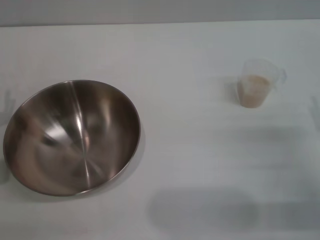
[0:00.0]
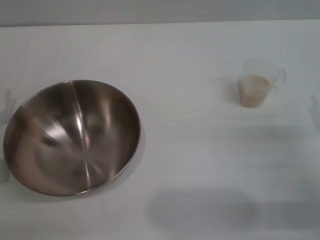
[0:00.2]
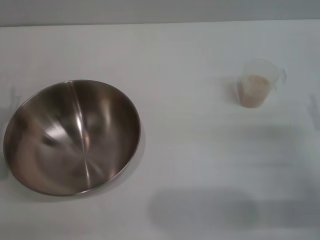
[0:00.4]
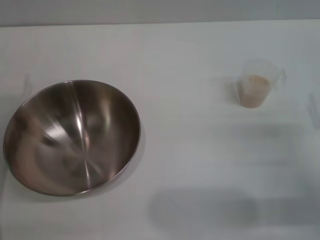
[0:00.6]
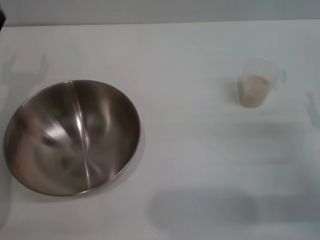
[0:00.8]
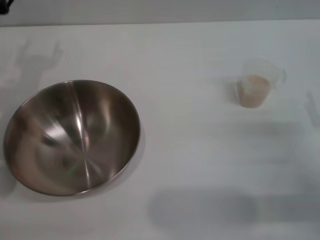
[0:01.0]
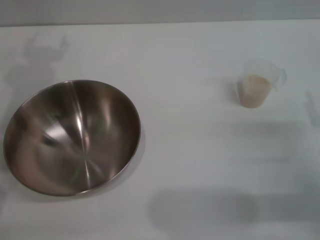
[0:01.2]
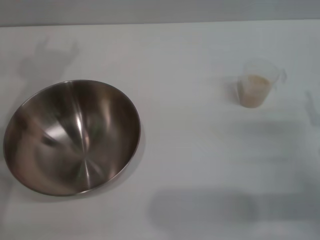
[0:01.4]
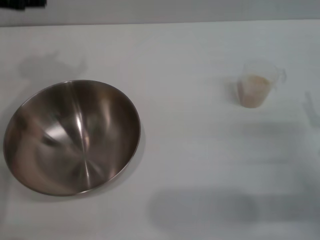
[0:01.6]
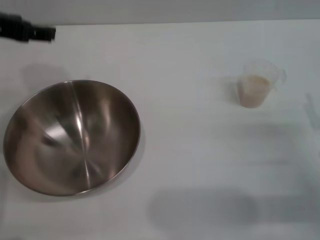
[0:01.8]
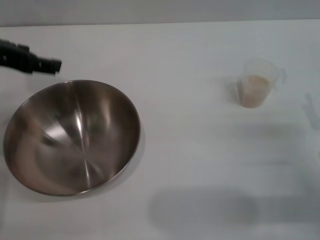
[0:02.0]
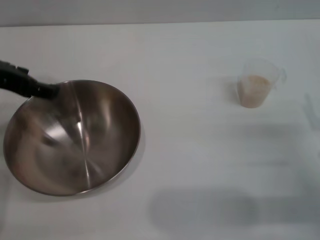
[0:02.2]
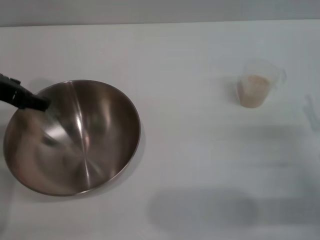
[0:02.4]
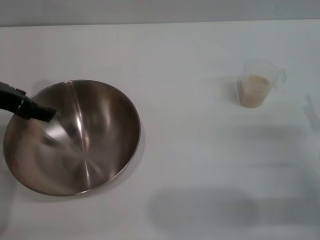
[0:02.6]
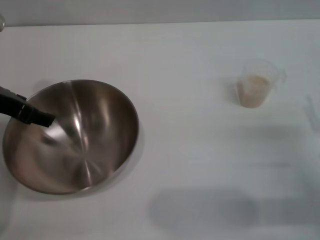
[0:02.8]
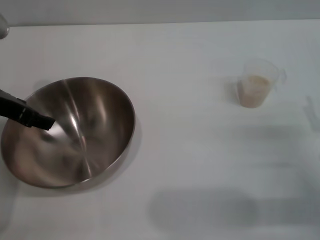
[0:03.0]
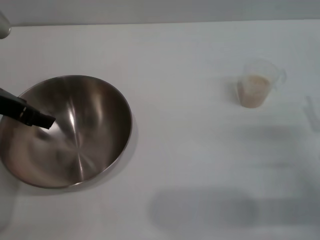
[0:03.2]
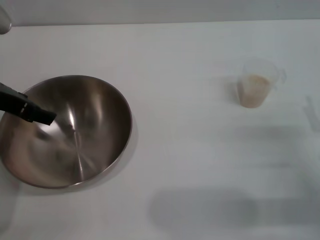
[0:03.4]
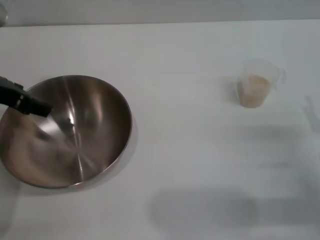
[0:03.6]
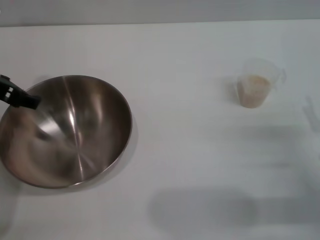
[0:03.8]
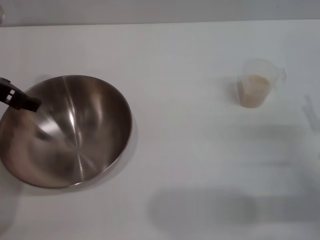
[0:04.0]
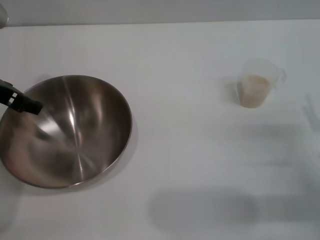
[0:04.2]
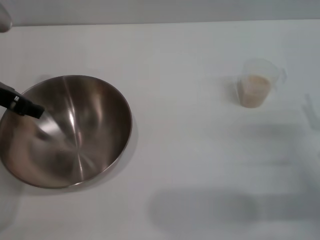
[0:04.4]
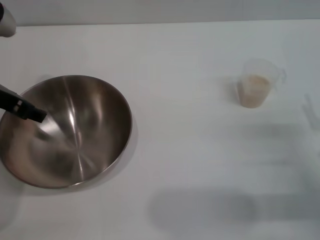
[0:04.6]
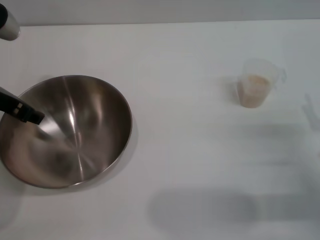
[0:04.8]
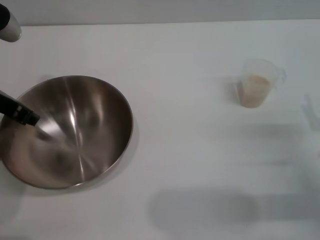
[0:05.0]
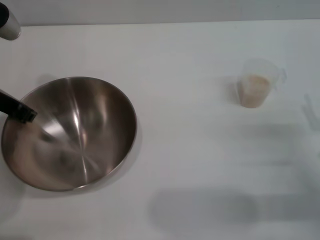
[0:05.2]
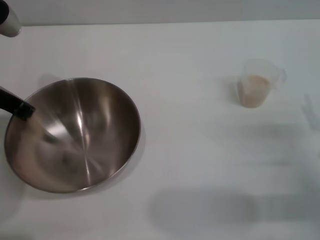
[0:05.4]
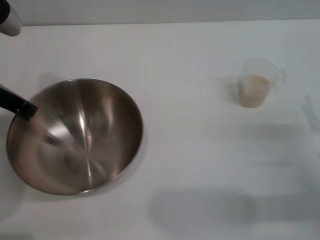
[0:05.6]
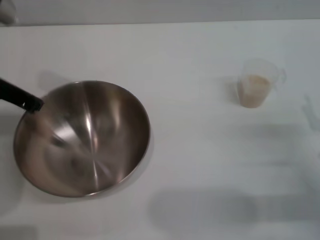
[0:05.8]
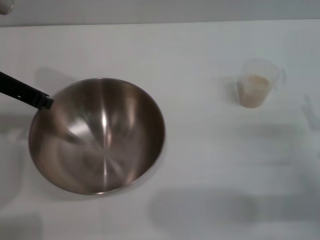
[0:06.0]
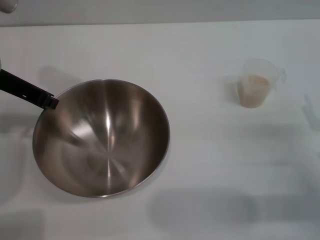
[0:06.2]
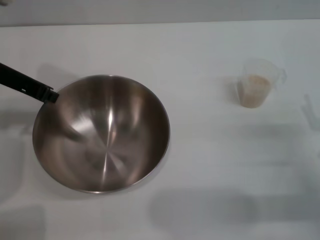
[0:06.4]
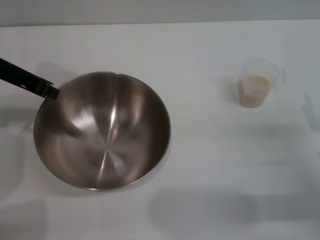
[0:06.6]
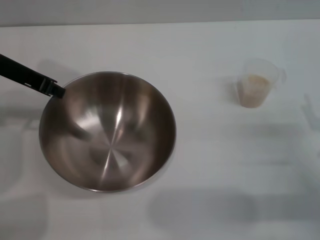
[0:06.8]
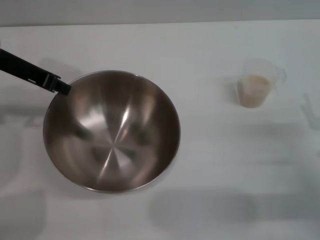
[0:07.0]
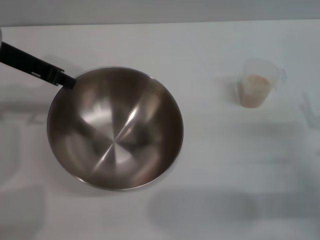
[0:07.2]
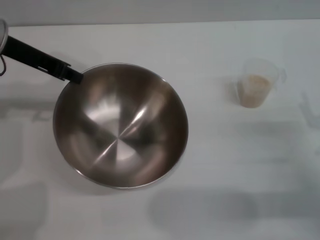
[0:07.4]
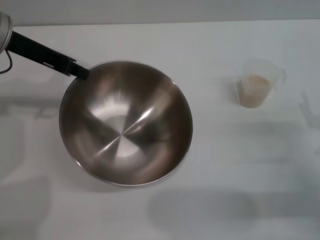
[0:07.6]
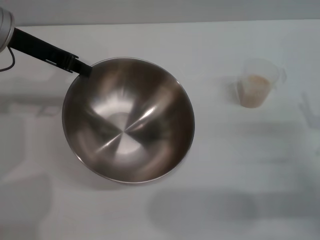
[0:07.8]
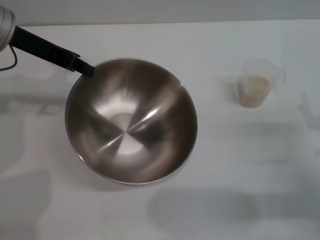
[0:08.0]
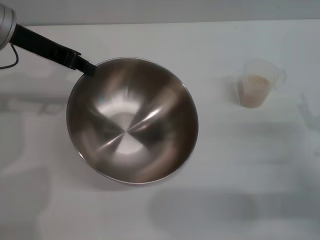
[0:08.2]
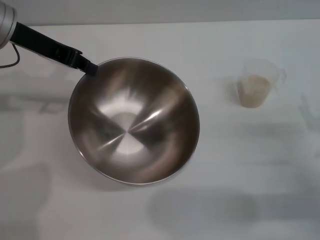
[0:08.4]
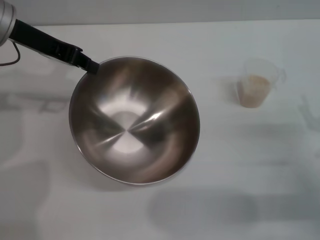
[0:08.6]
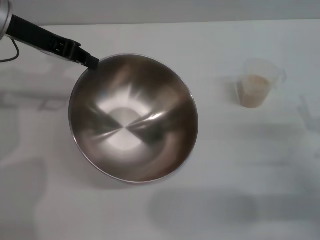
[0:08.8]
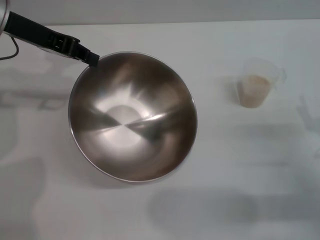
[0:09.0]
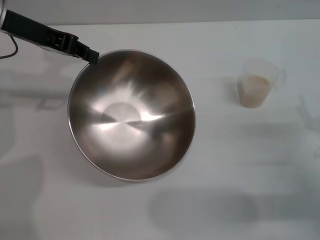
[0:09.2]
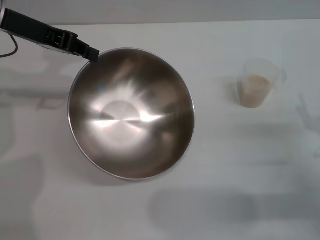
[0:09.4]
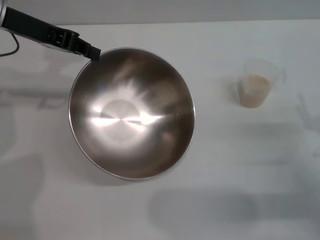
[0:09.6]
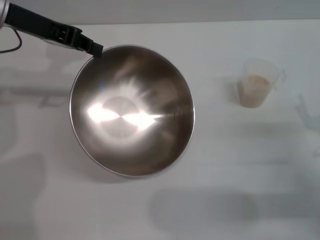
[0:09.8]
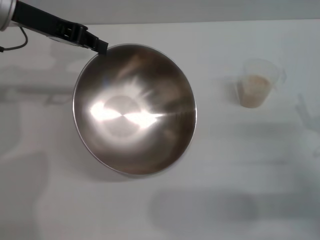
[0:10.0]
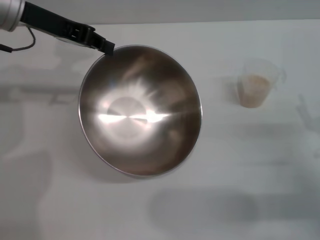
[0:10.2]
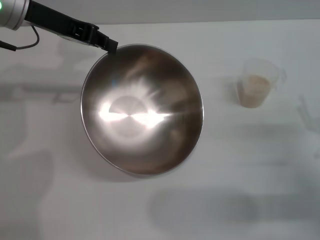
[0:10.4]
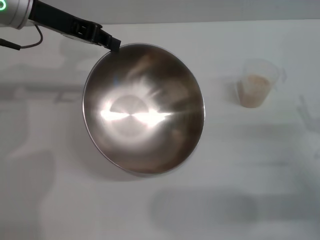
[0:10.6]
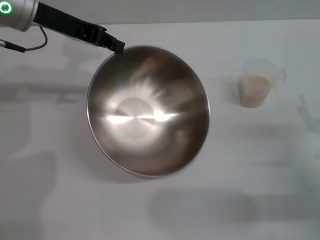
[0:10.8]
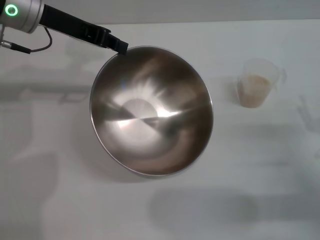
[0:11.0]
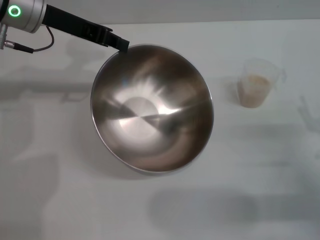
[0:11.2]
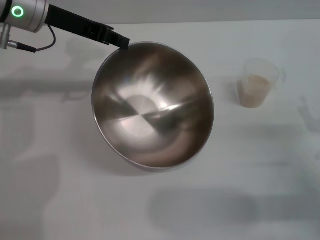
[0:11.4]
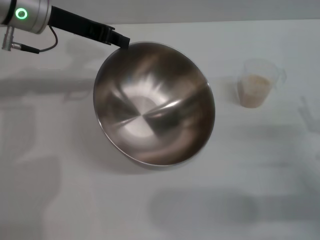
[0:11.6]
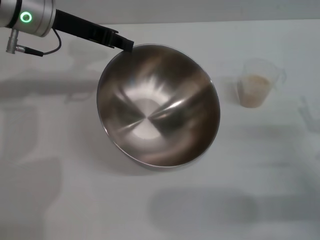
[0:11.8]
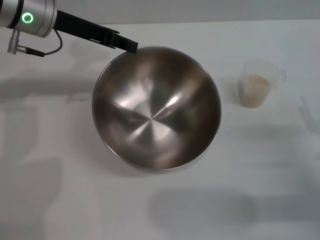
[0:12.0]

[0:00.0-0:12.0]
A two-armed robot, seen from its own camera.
Task of the whole recording: Place the bowl in the middle of the table with one hand and pour the rice from the grain cup into it with the other hand.
Step, 0:00.0 to 0:08.4: Pick up the bowl with the left gripper.
0:00.0 to 0:01.6: The left gripper moves upward and forward, some 25 cm.
0:01.6 to 0:03.0: The left gripper travels downward by about 5 cm.
0:03.0 to 0:04.4: The grippers stay close to where they were, moving slightly.
0:04.4 to 0:06.0: The left gripper closes up.
0:07.6 to 0:12.0: There are only small adjustments of the grippers.

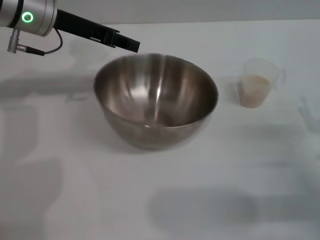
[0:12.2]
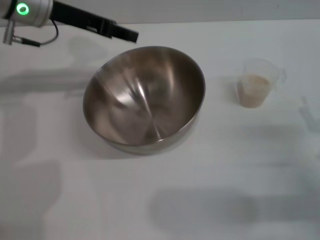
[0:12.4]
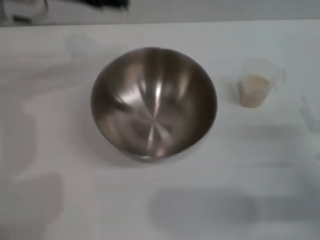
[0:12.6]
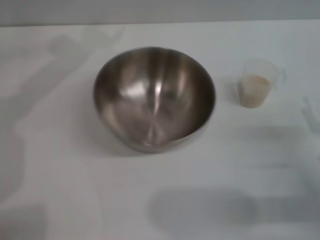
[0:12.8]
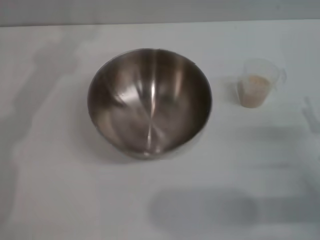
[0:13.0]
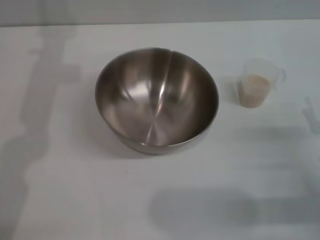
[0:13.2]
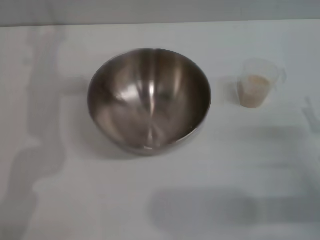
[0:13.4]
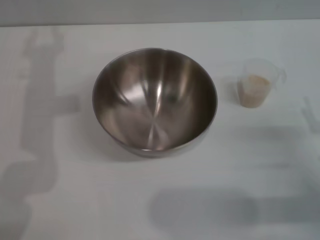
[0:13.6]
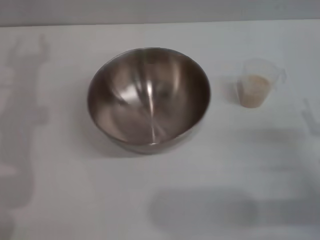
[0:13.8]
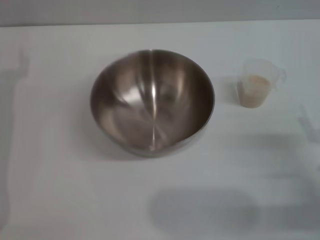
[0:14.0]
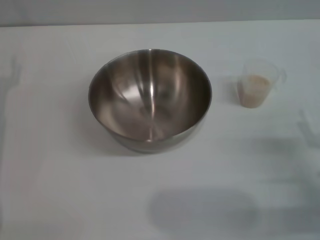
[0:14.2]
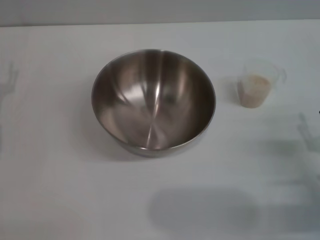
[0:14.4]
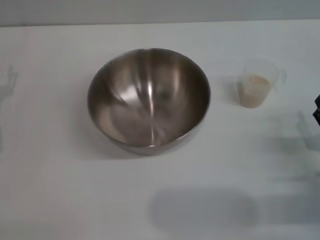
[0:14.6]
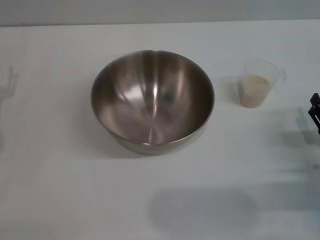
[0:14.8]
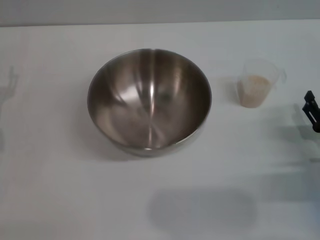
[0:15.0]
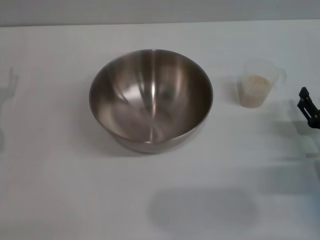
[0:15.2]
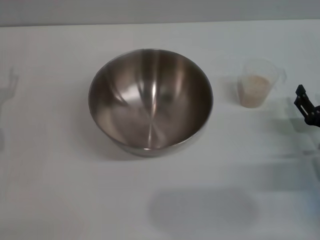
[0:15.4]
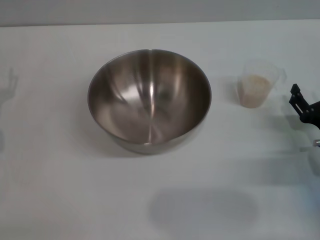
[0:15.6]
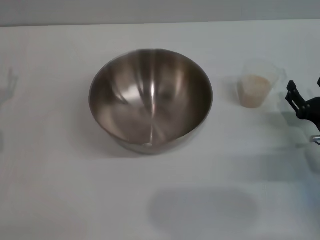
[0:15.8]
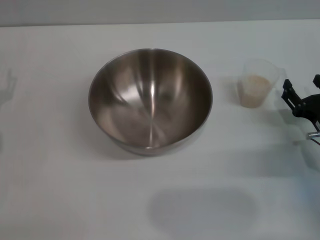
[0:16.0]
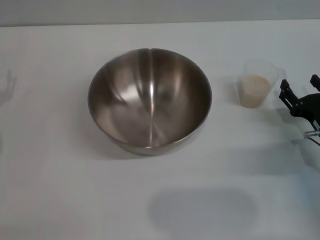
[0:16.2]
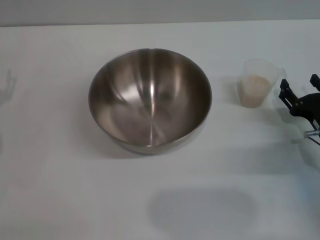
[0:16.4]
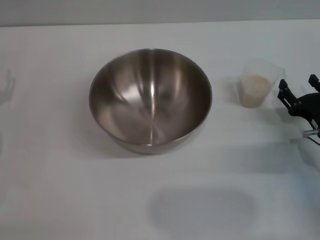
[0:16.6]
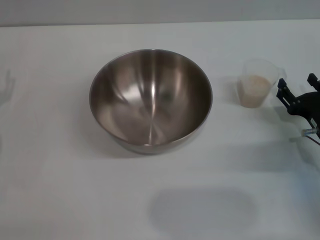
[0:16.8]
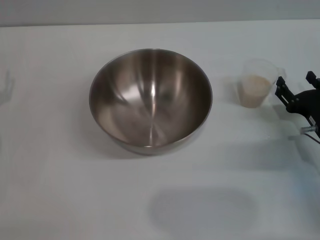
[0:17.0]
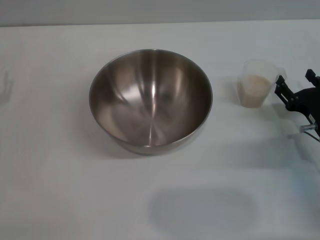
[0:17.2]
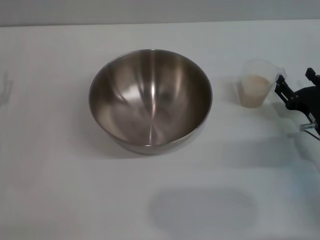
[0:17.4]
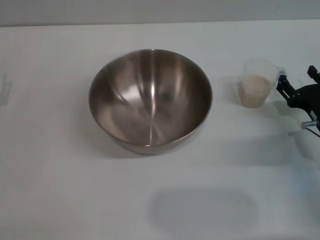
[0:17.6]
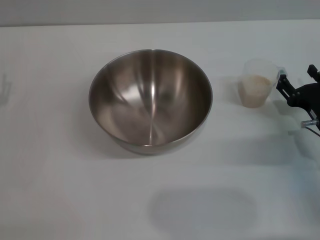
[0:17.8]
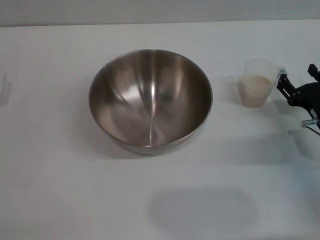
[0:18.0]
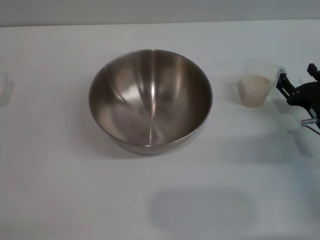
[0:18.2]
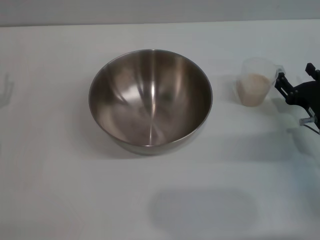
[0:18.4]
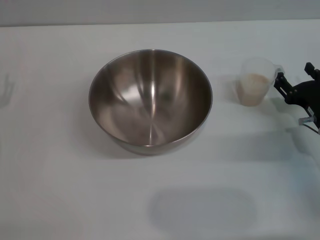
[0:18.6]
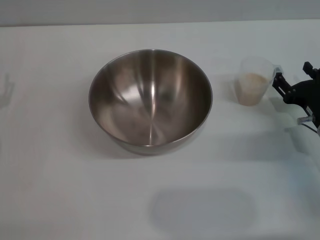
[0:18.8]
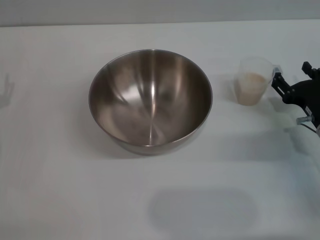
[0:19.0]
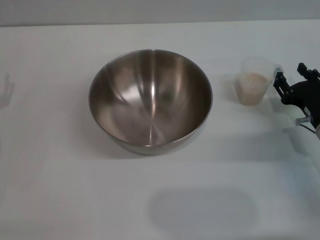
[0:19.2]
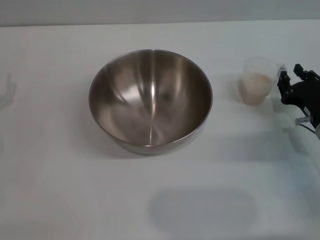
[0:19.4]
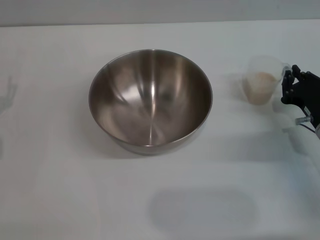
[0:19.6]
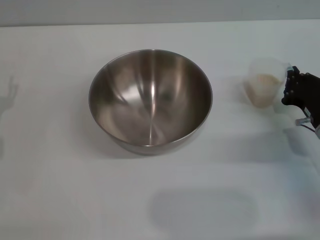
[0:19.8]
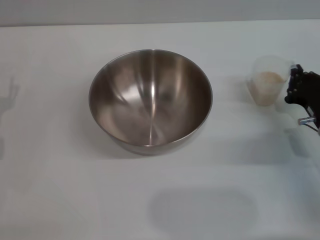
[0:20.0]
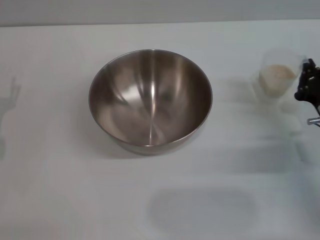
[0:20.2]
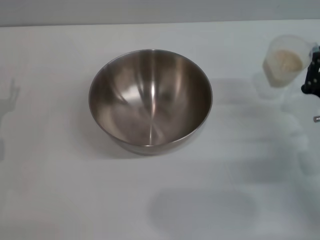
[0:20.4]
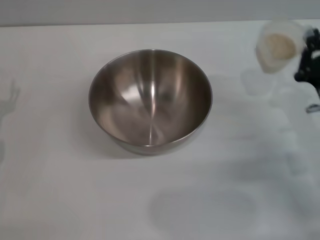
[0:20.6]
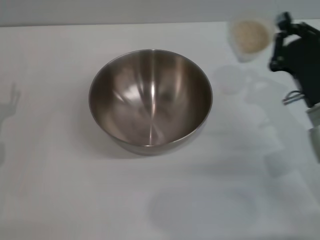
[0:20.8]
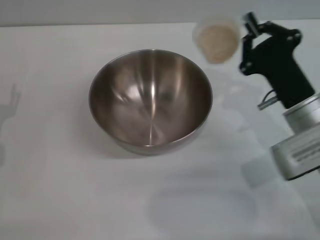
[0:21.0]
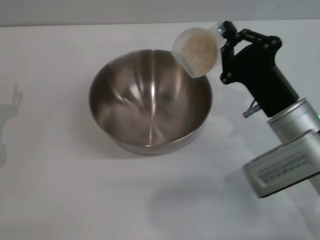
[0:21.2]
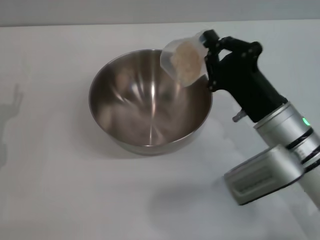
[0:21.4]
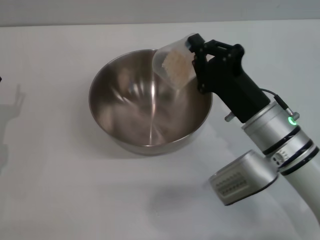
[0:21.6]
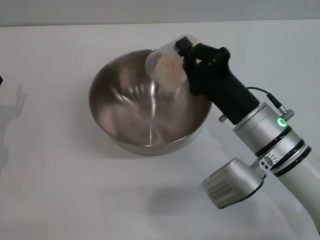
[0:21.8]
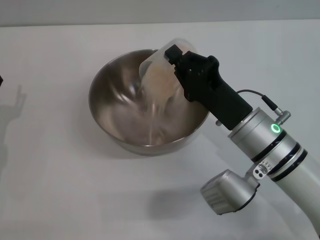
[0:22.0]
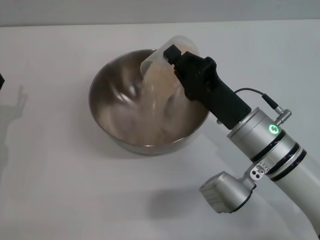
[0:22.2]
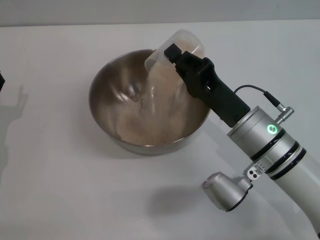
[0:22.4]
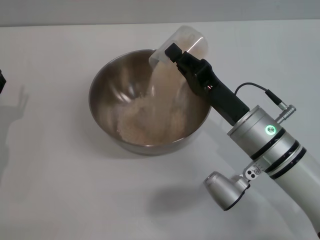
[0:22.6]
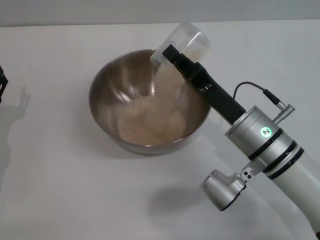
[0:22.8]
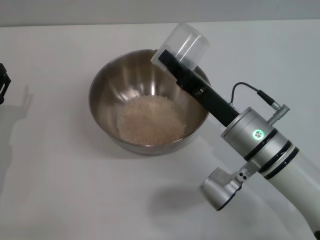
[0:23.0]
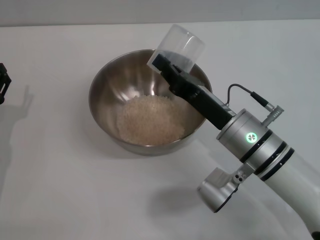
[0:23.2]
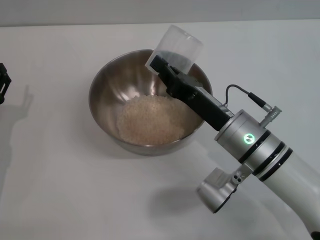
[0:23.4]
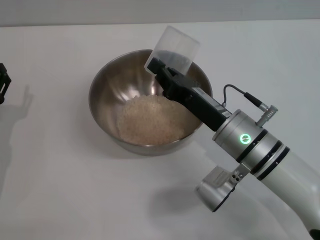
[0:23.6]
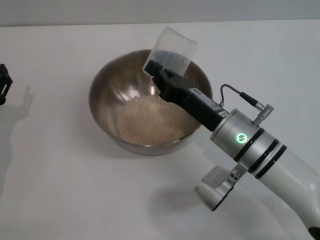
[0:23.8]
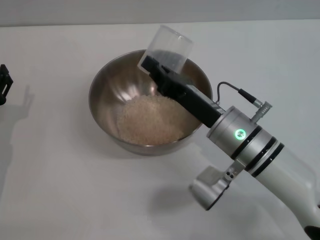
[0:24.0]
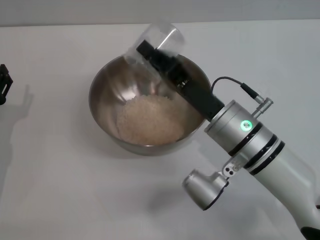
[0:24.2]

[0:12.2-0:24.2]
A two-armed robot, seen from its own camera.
Task of the whole recording: Place the bowl in the middle of the table with one hand and pour the rice from the grain cup into it with the other hand.
Step, 0:13.8 to 0:20.2: Pick up the cup with rice in it with the right gripper.
Step, 0:20.6 to 0:24.2: Pour the rice from the cup into the bowl with the right gripper.
0:12.2 to 0:13.8: The left gripper heads backward and to the left, covering some 10 cm, and opens its fingers.
0:13.8 to 0:15.2: The left gripper shifts some 10 cm downward and to the left.
0:15.2 to 0:18.2: The grippers make only small movements.
0:18.2 to 0:19.8: The right gripper closes.
0:19.8 to 0:21.2: The right gripper heads to the left and upward, covering some 10 cm.
